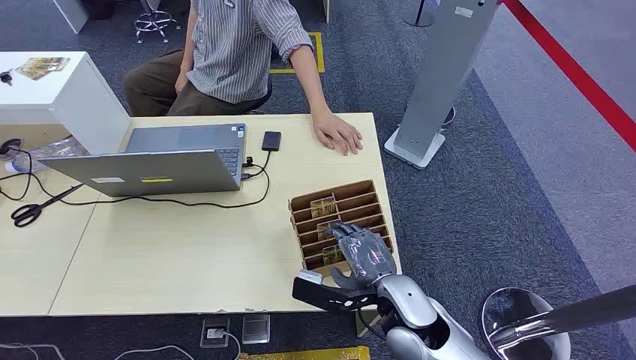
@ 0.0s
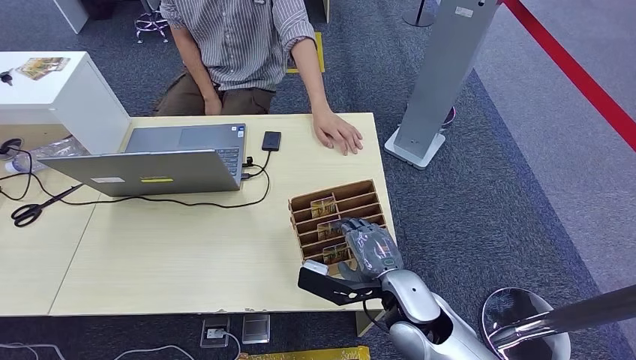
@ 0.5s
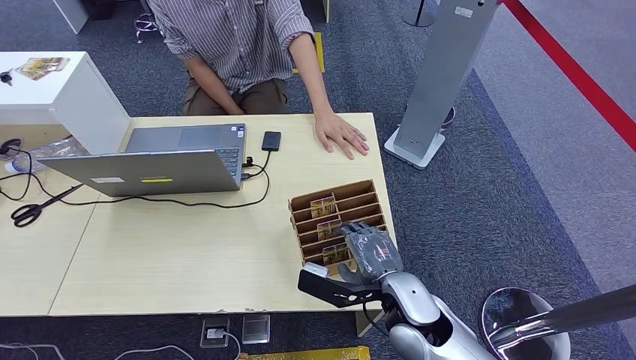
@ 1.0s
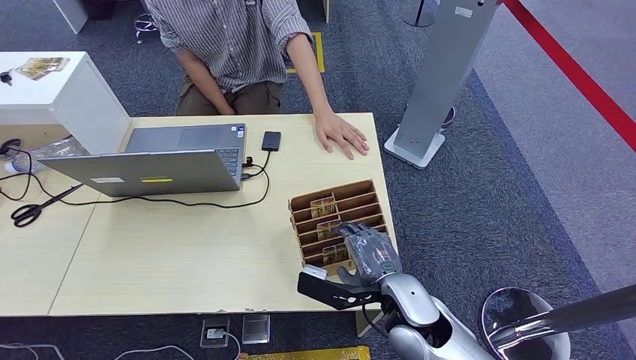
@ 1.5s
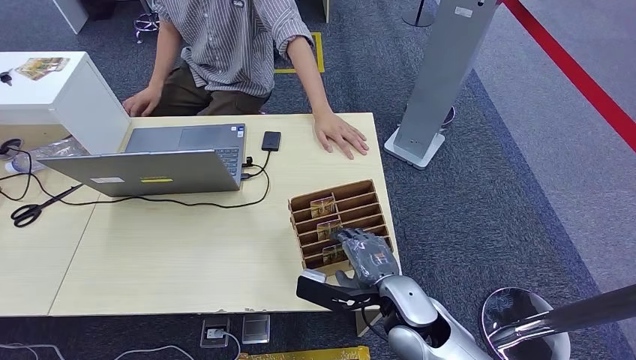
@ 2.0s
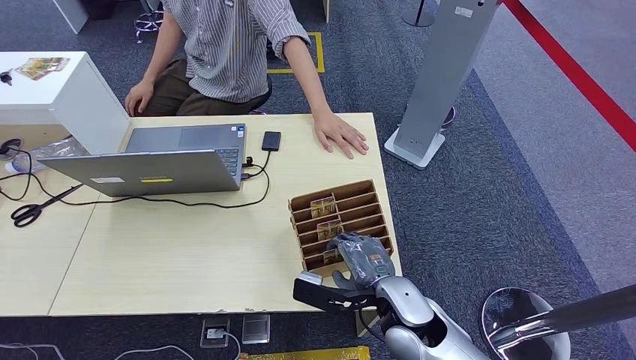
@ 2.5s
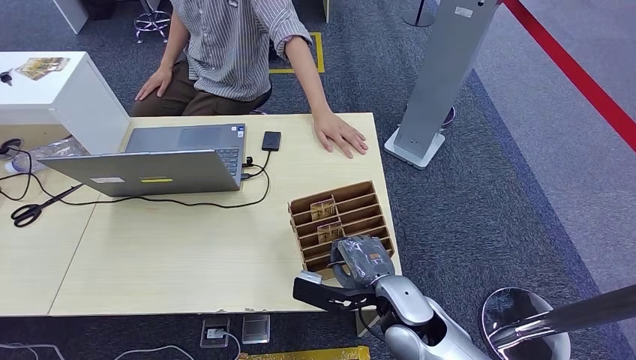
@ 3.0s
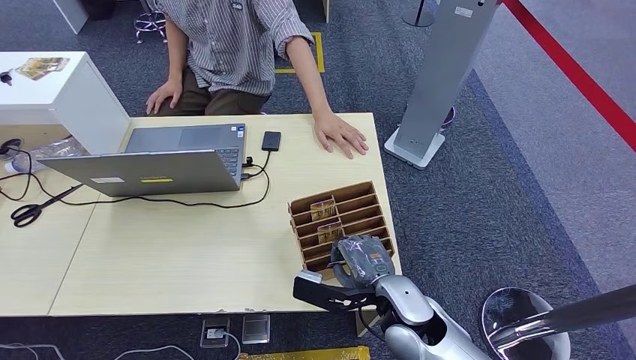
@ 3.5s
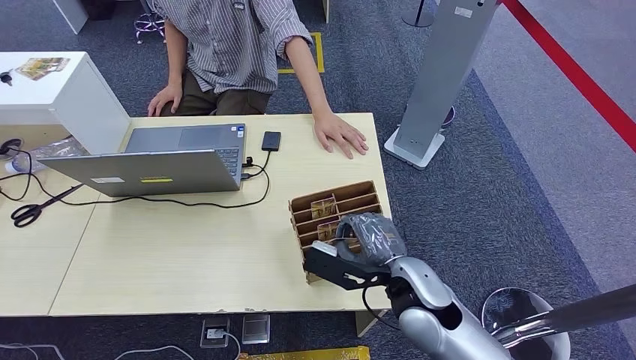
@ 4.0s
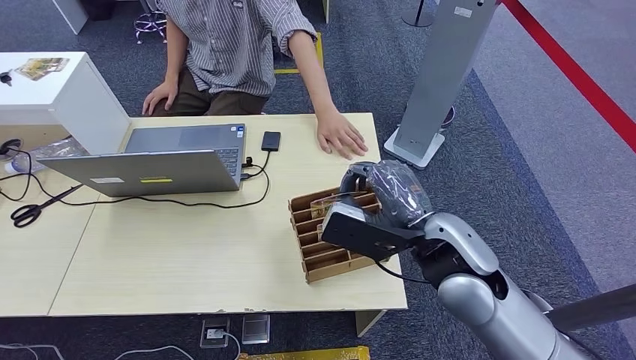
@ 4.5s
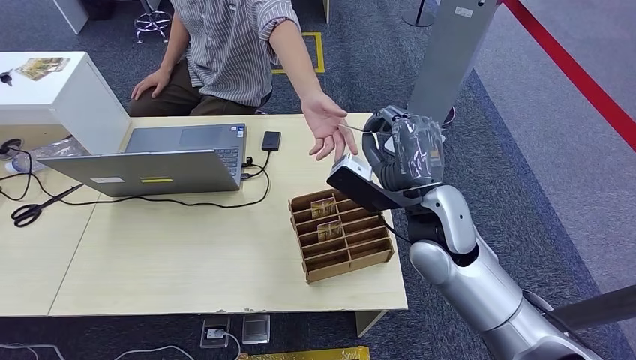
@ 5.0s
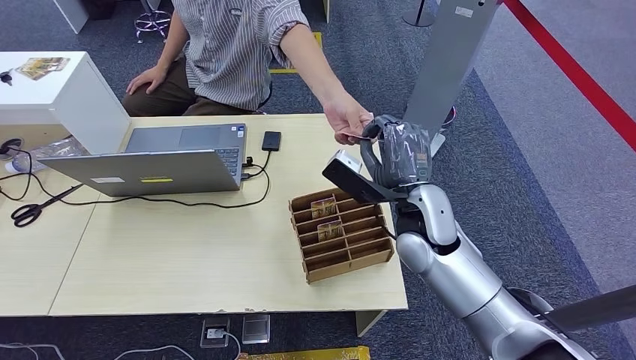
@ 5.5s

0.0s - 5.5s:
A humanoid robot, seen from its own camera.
Step, 0.0s - 4.0s: Pick up the key card from the card box.
Step, 5.0s - 5.5s: Hand the key card to the target.
2.0s - 3.5s: The two hands keep their place.
3.5s - 5.5s: The right hand shifts some 15 cm forward and upward.
